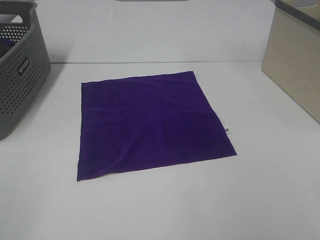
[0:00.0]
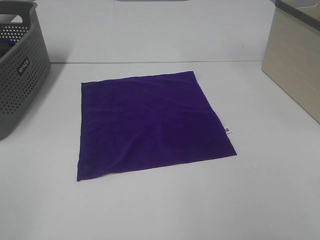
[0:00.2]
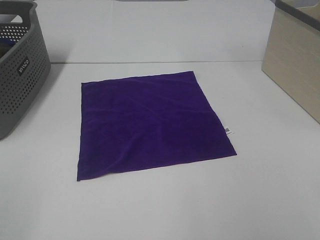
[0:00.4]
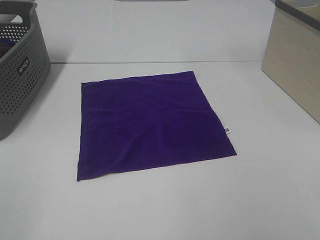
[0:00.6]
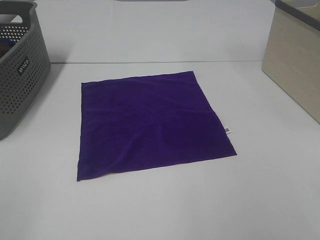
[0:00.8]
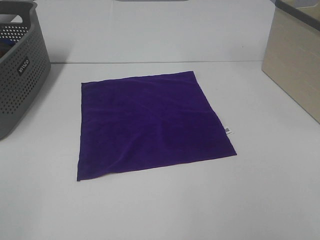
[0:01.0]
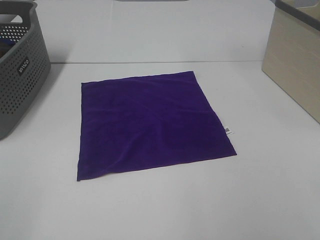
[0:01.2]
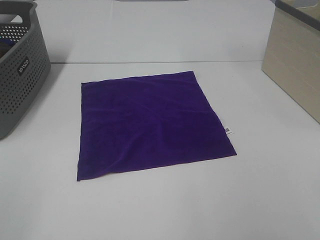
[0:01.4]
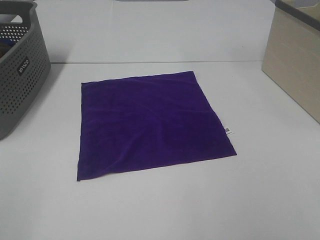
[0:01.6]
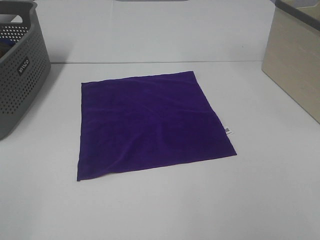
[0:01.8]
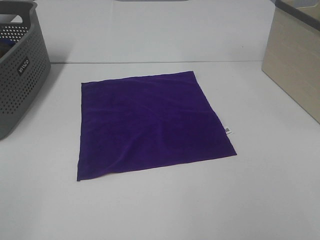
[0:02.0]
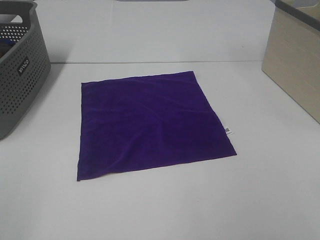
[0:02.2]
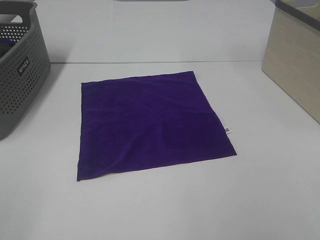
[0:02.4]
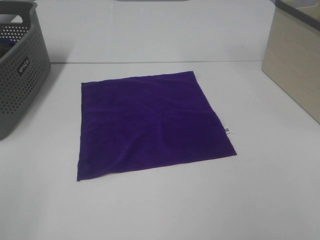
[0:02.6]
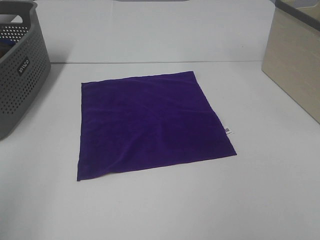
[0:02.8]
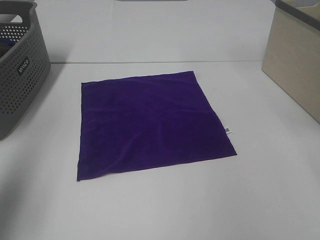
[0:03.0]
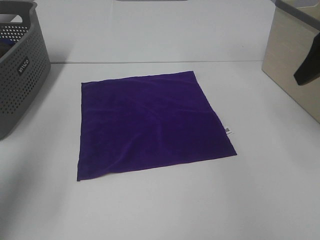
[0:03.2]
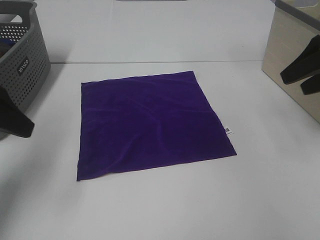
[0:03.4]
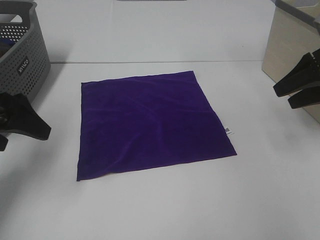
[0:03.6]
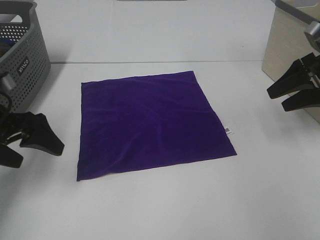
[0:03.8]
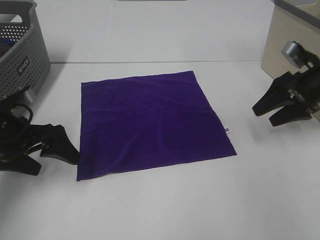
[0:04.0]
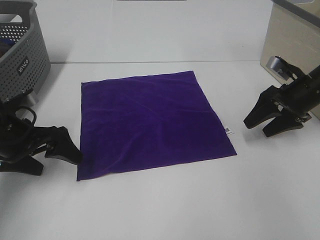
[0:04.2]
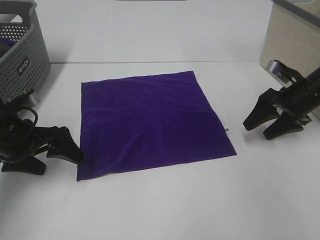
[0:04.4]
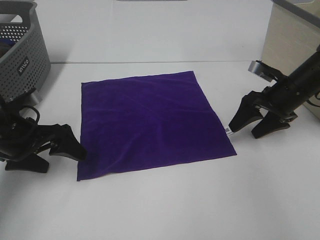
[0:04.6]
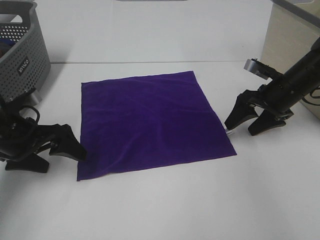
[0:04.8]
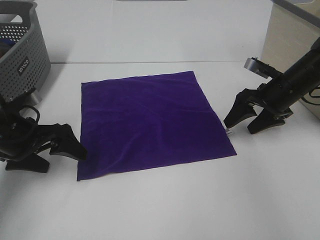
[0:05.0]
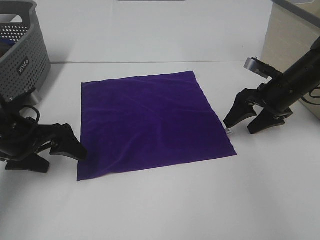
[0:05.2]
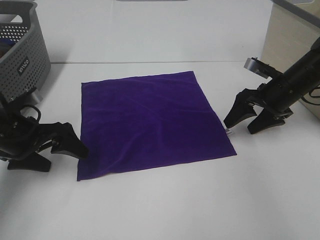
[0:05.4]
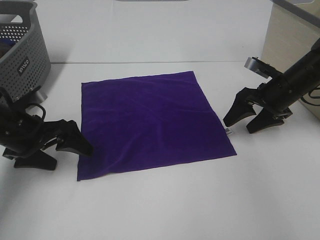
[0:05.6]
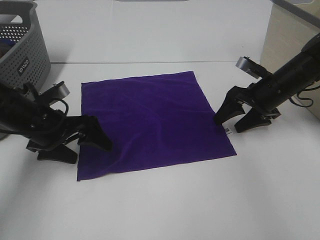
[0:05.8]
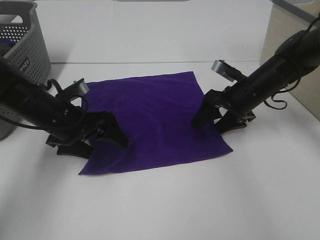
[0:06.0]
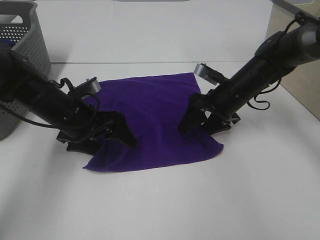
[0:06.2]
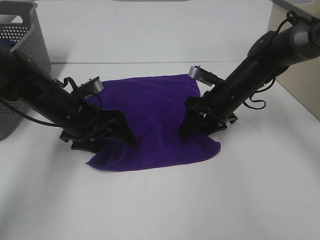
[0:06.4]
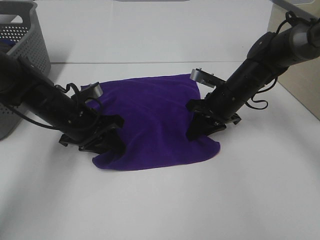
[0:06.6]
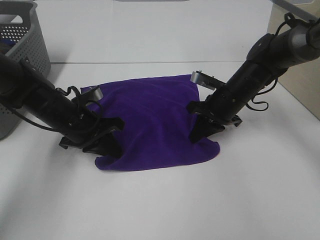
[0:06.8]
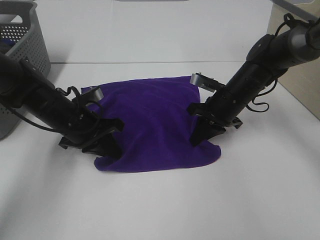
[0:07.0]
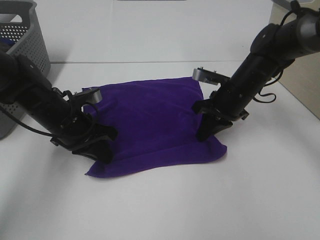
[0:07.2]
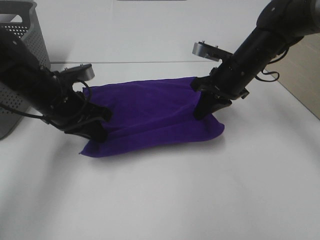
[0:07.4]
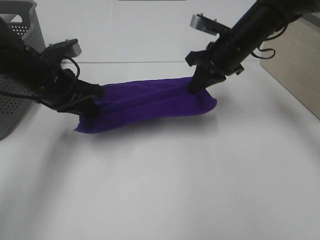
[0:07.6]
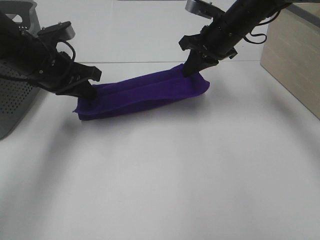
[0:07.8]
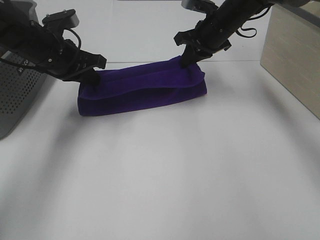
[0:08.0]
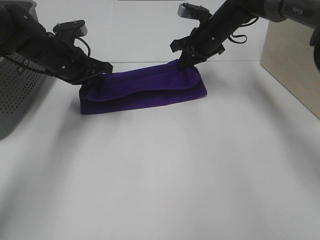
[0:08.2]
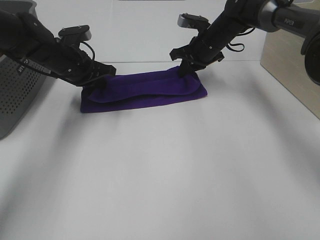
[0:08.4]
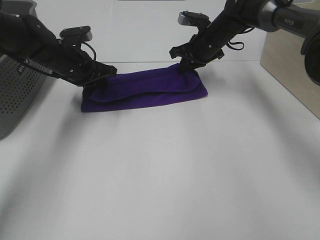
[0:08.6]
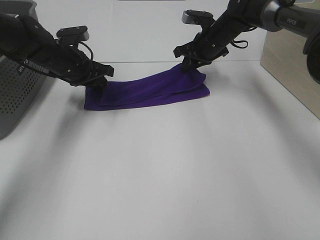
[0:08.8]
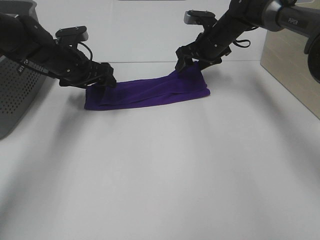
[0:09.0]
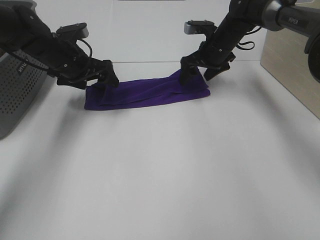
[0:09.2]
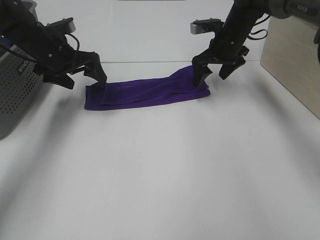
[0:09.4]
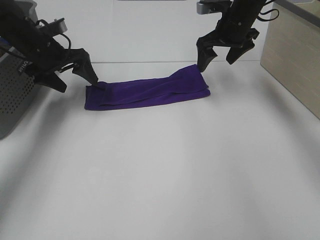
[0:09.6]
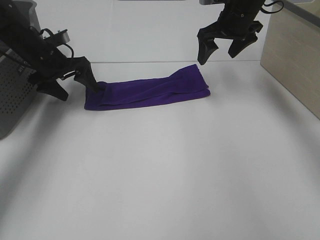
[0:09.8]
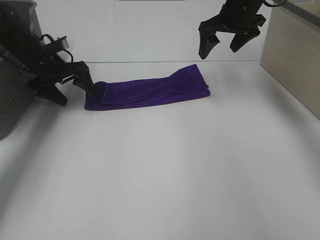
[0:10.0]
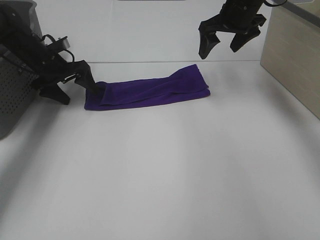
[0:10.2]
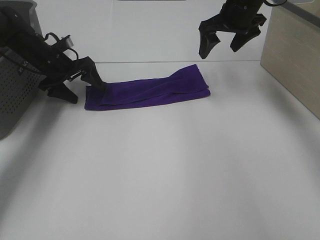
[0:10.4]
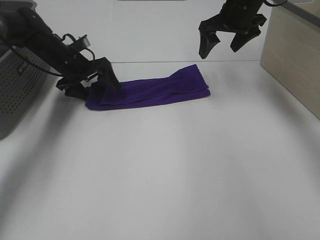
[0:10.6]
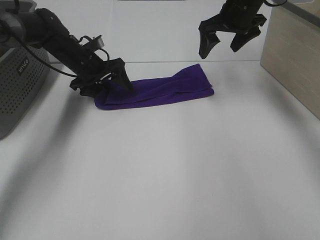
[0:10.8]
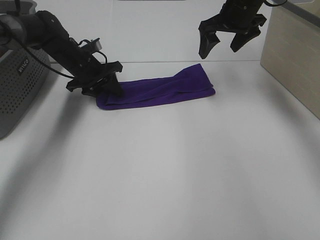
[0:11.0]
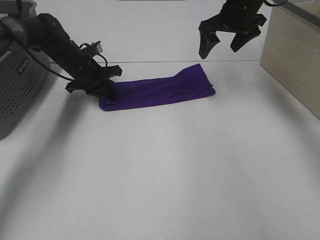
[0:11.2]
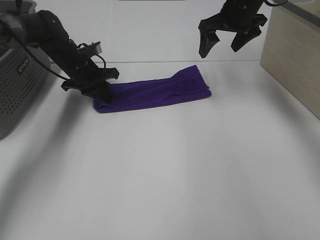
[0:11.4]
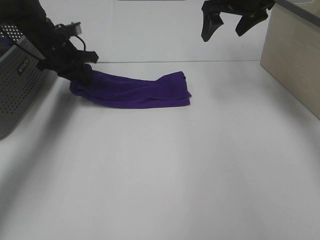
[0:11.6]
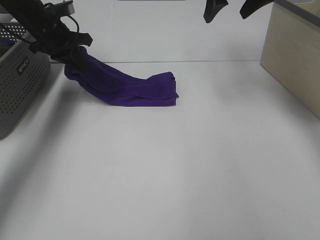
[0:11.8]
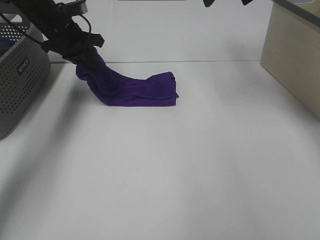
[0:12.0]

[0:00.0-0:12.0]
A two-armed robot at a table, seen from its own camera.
Task of the whole recording: Fold towels.
Step, 0:00.0 to 0:06.8: Left hand: grab the bottom left corner of purple towel.
Step, 0:00.0 to 0:06.8: Right hand: grab the bottom right corner of purple towel.
Step, 0:07.0 to 0:08.6: Left hand: fold the purple towel up.
Step, 0:07.0 to 0:08.6: Right hand: fold the purple towel up.
0:00.0 to 0:01.6: Neither gripper changes place.
0:01.6 to 0:03.0: The left gripper goes about 15 cm forward.
0:03.0 to 0:04.4: Both grippers move downward and forward, some 25 cm.
0:04.4 to 0:06.0: The right gripper travels to the left by some 10 cm; the left gripper goes some 5 cm to the right.
0:06.0 to 0:07.6: The left gripper moves upward, about 10 cm, and closes its fingers, while the right gripper heads upward and to the left, covering roughly 10 cm, and closes up.
0:07.6 to 0:09.0: The grippers both shift forward by about 10 cm. The right gripper opens up. The left gripper opens.
0:09.0 to 0:10.4: The left gripper ends up approximately 5 cm from where it was; the right gripper heads upward, covering approximately 10 cm.
0:10.4 to 0:12.0: Both grippers travel together upward, some 10 cm. The left gripper closes its fingers.

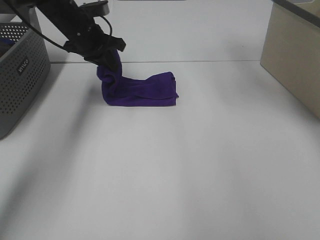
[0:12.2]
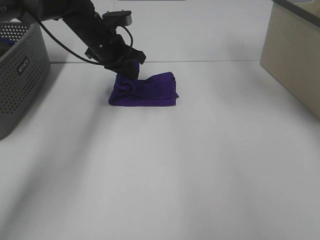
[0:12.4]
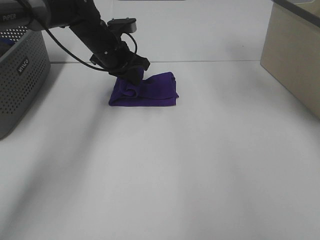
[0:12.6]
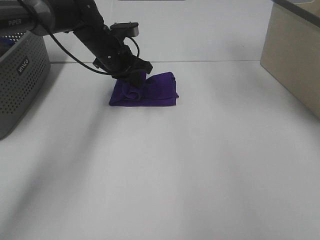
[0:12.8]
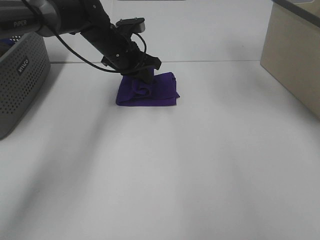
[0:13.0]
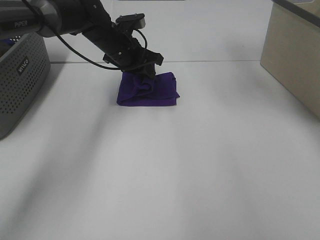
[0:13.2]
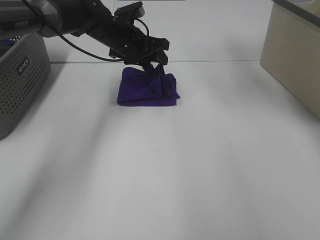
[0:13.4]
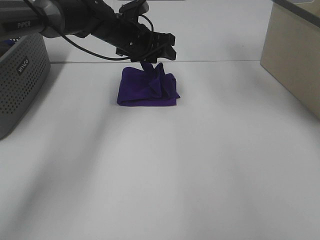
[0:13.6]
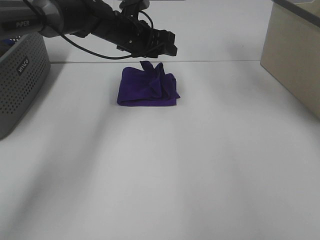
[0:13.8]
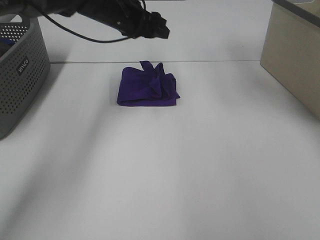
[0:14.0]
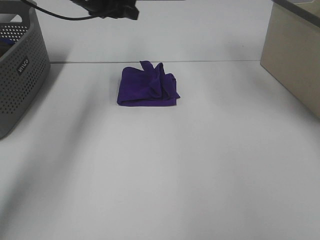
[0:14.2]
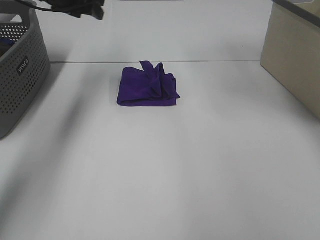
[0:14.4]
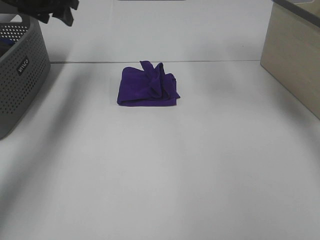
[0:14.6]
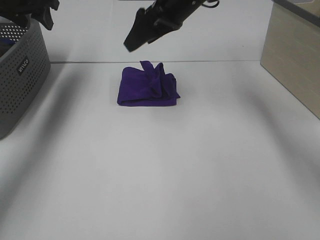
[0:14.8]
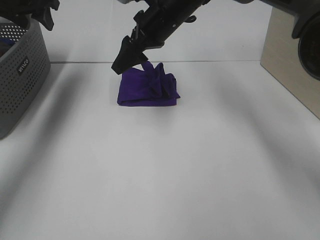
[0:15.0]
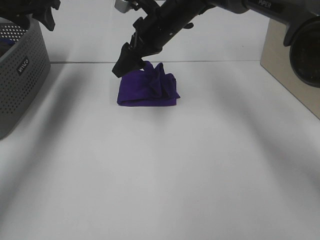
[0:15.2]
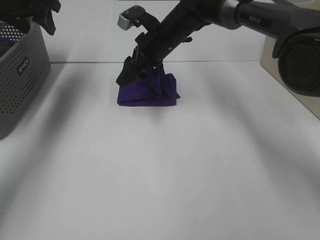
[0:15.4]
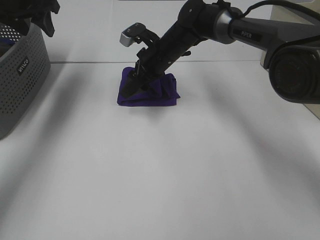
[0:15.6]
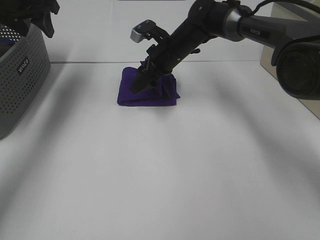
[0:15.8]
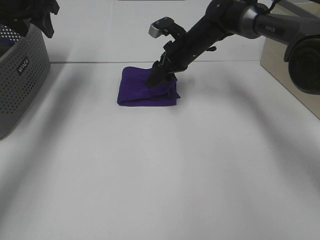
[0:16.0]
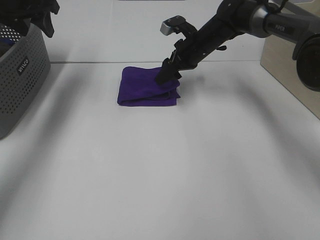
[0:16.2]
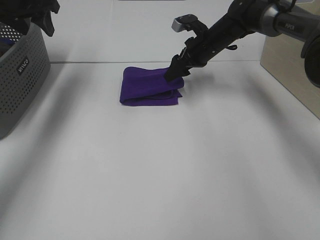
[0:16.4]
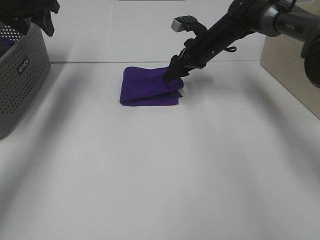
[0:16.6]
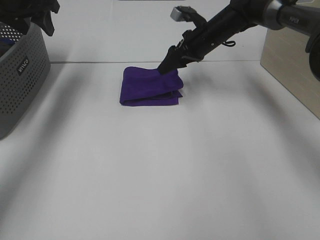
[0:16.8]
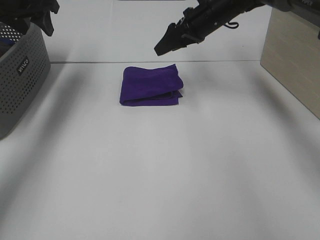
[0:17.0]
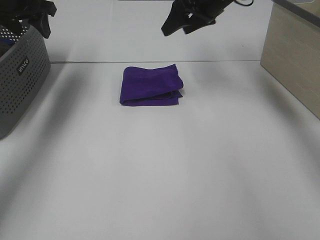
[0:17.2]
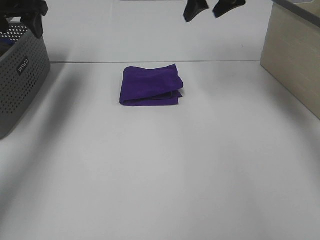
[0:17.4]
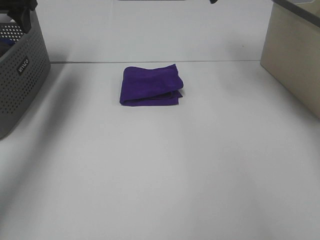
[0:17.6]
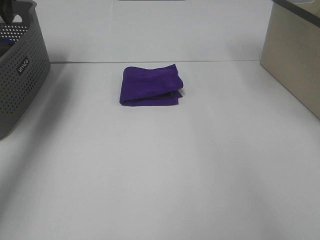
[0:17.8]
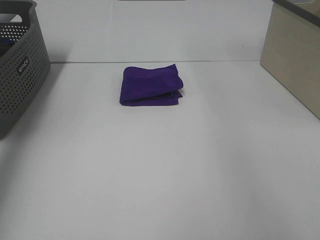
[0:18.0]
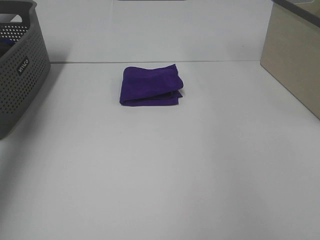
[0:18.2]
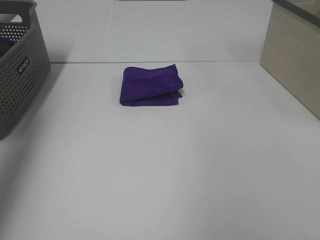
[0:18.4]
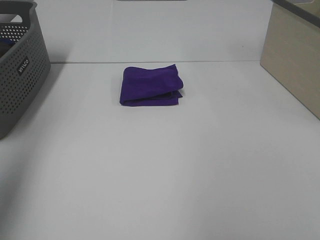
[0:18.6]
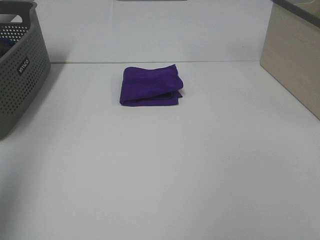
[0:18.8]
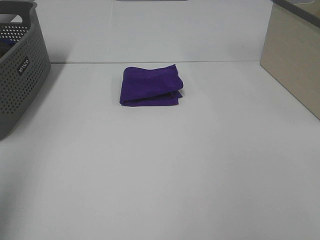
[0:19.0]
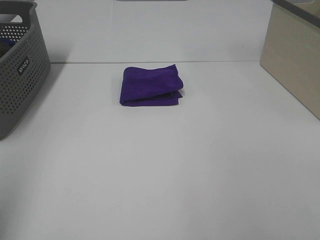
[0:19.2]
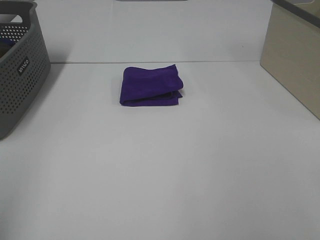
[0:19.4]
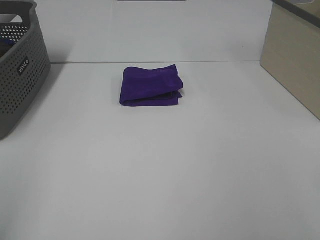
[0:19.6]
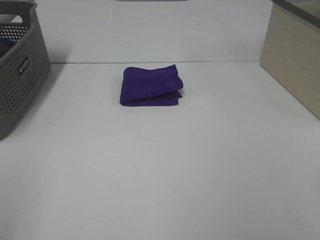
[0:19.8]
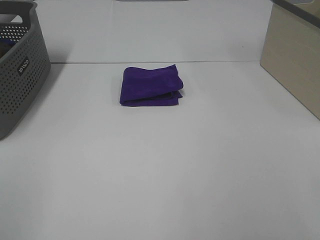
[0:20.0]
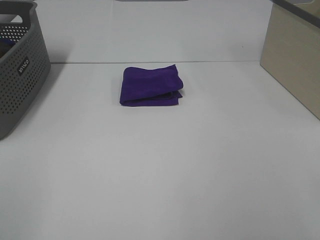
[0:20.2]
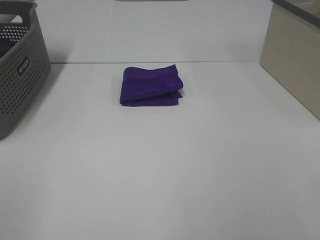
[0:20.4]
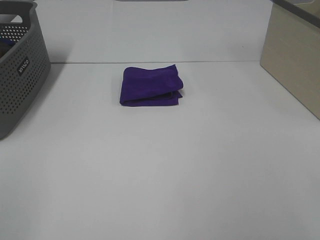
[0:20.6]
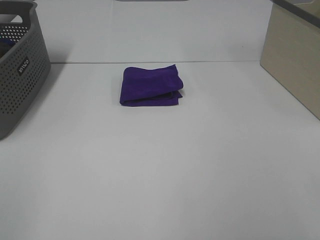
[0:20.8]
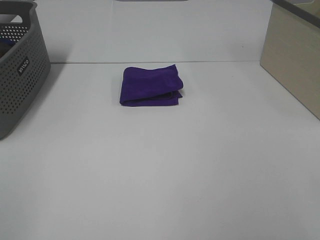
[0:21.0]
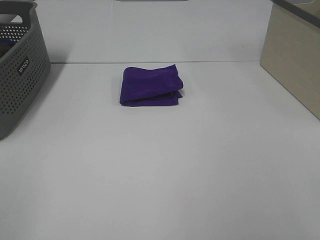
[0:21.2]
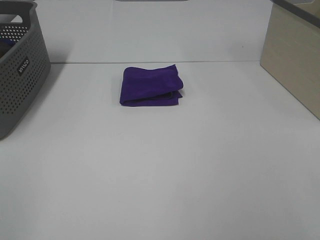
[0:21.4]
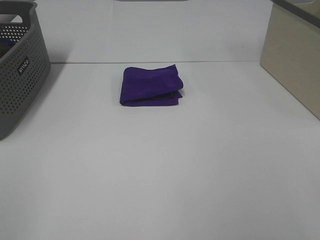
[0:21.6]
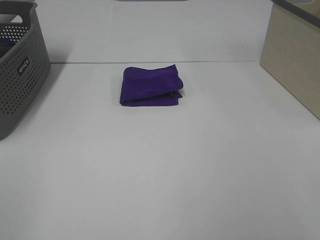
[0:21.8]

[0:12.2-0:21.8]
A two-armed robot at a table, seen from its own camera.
Task of the whole recording: Fold towels.
Step, 0:13.4 to 0:16.6: Right hand: adjust the purple towel.
0:12.2 to 0:13.8: The left gripper is displaced to the right by approximately 10 cm, and opens its fingers.
0:13.8 to 0:15.4: The left gripper shifts about 25 cm to the left and upward. The right gripper heads downward and to the left, covering roughly 25 cm.
0:15.4 to 0:17.0: The right gripper goes roughly 10 cm to the right.
0:17.0 to 0:18.6: The left gripper travels backward and upward by some 35 cm; the right gripper travels backward, to the right and upward by approximately 50 cm.
0:18.6 to 0:20.2: The left gripper heads backward and downward, covering approximately 20 cm.
0:20.2 to 0:21.8: Neither gripper changes place.
